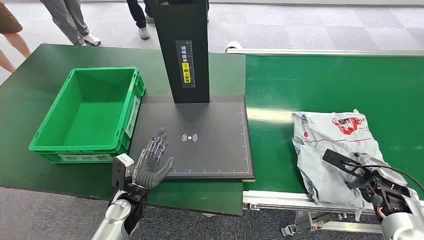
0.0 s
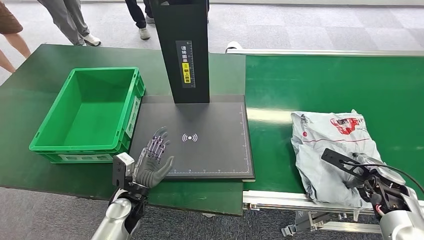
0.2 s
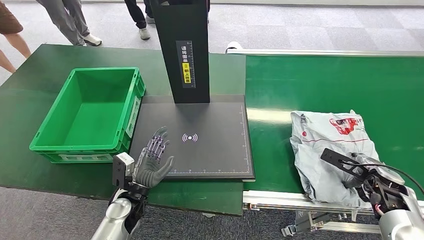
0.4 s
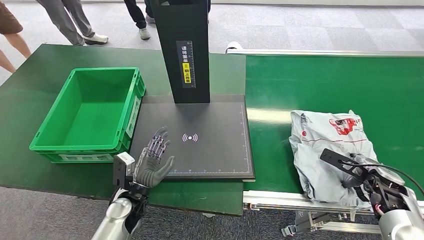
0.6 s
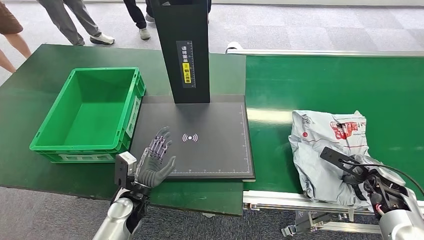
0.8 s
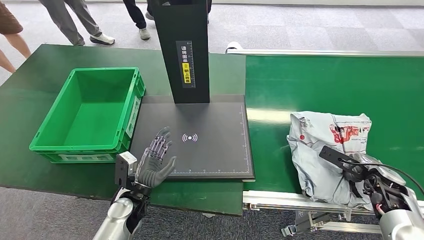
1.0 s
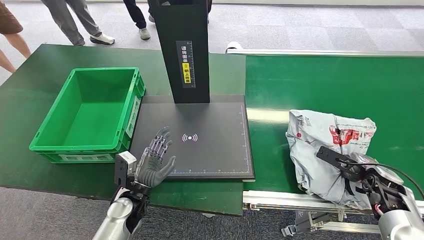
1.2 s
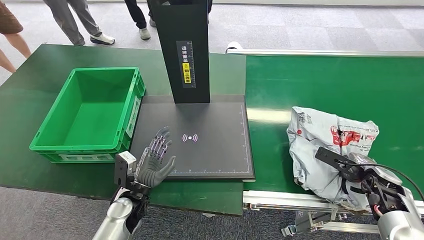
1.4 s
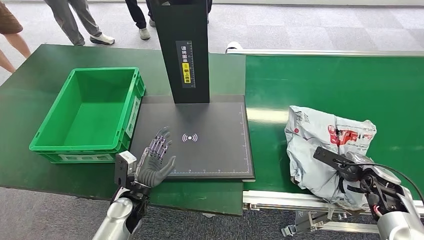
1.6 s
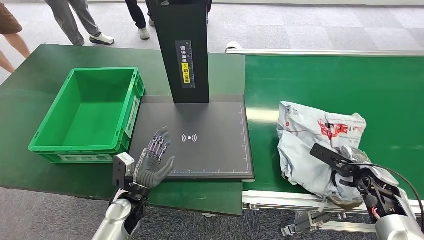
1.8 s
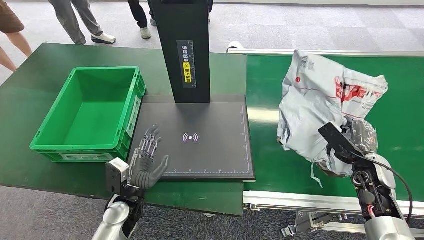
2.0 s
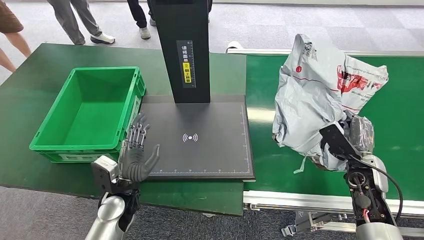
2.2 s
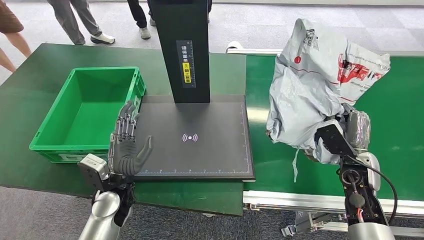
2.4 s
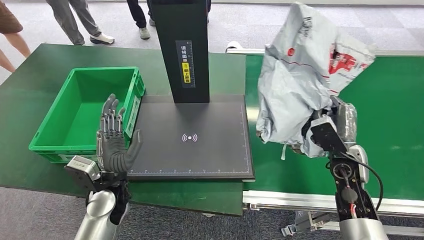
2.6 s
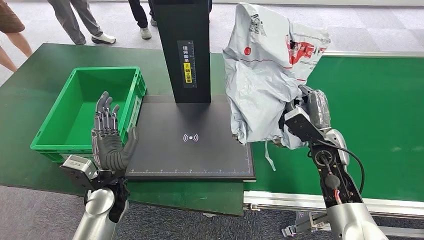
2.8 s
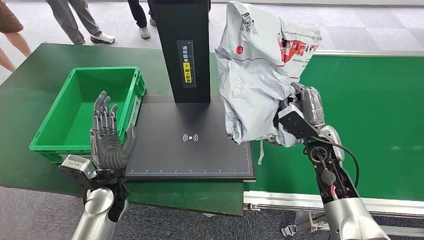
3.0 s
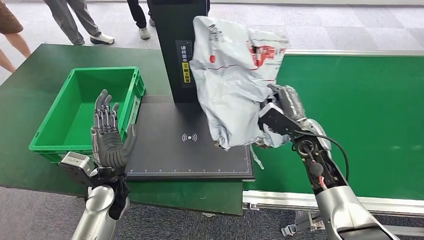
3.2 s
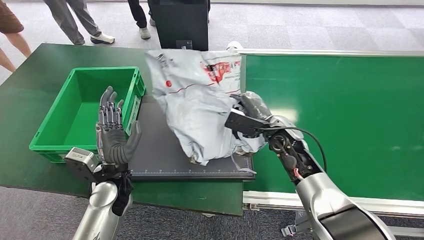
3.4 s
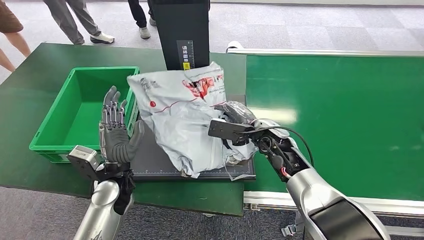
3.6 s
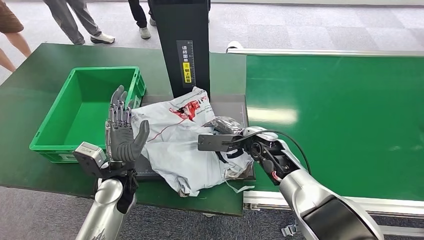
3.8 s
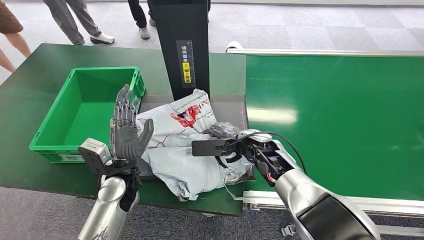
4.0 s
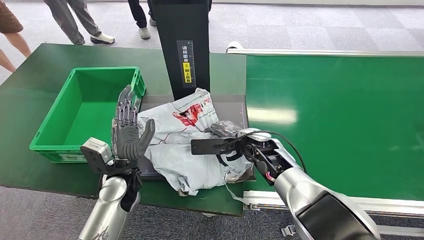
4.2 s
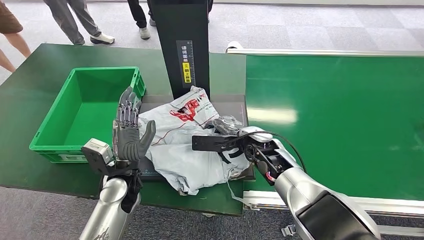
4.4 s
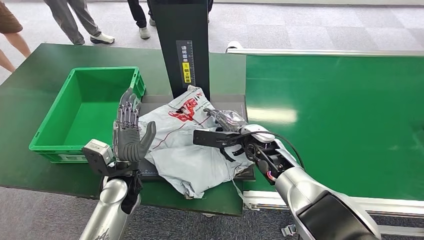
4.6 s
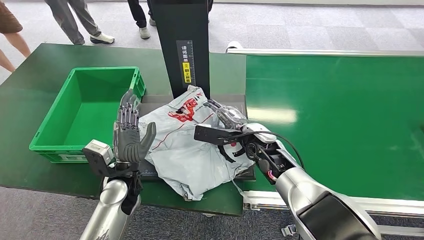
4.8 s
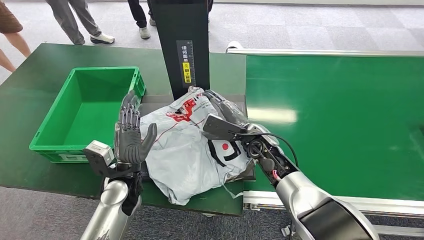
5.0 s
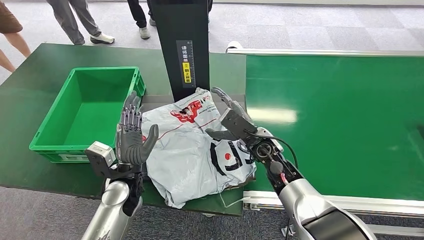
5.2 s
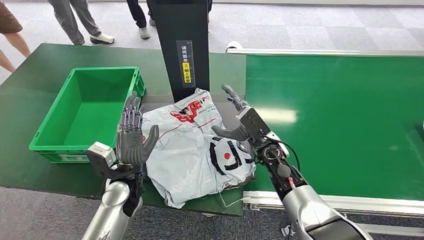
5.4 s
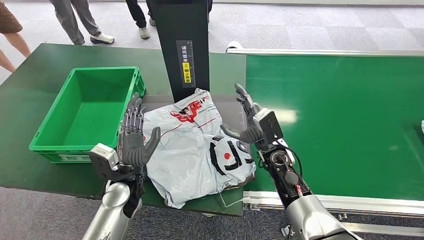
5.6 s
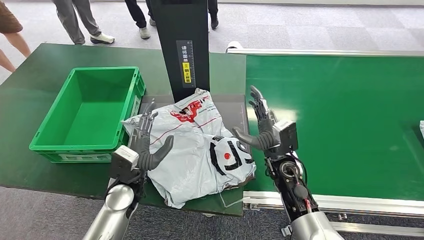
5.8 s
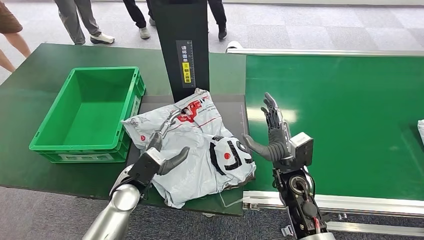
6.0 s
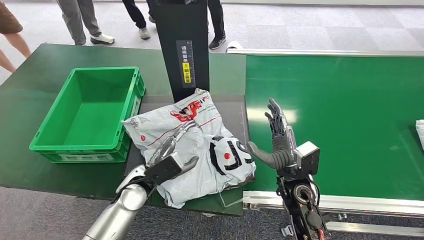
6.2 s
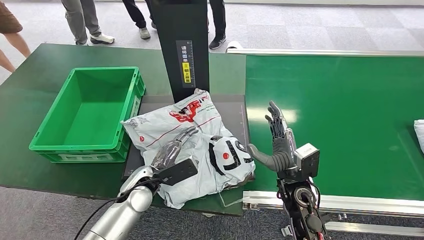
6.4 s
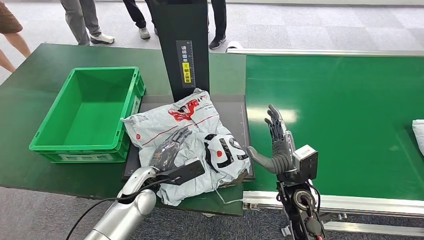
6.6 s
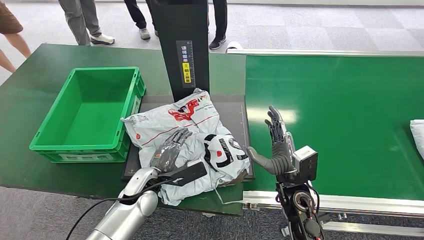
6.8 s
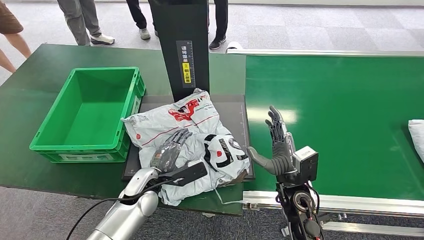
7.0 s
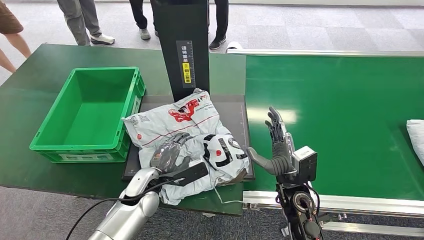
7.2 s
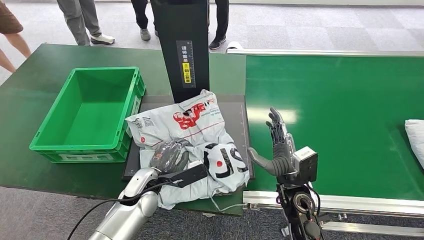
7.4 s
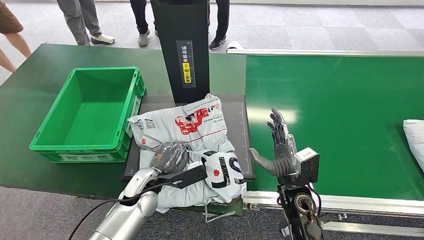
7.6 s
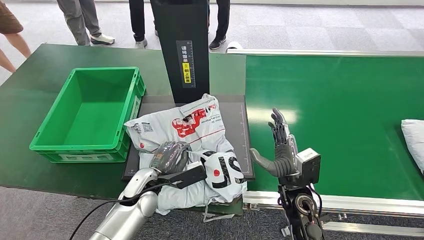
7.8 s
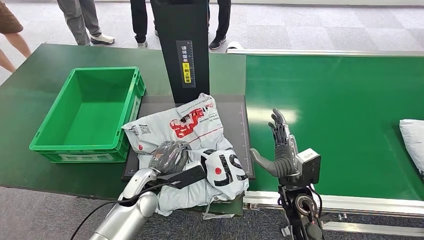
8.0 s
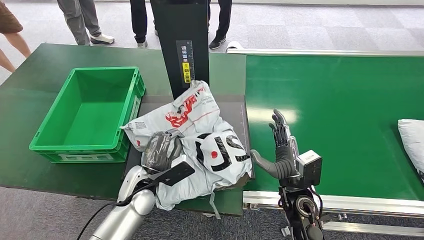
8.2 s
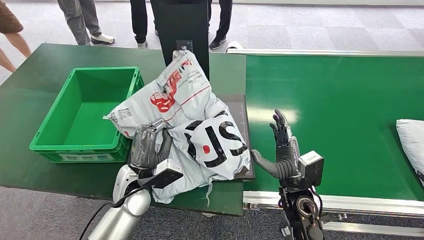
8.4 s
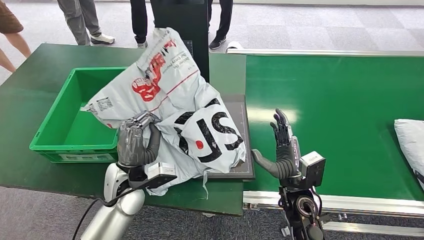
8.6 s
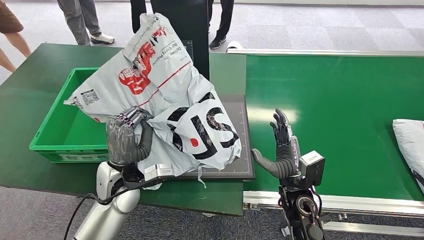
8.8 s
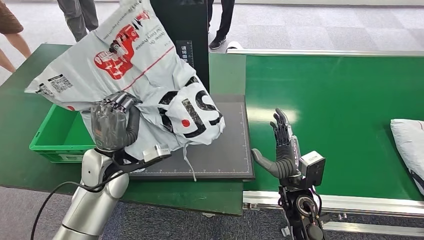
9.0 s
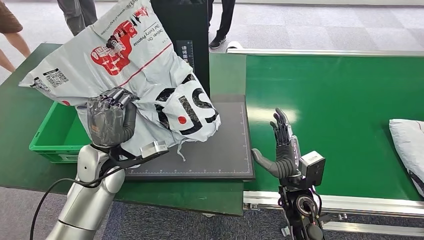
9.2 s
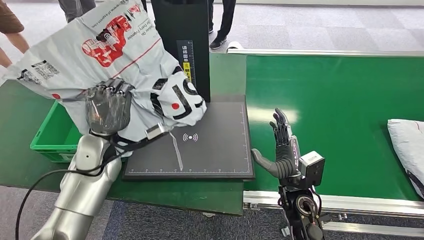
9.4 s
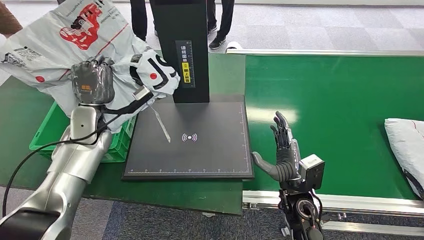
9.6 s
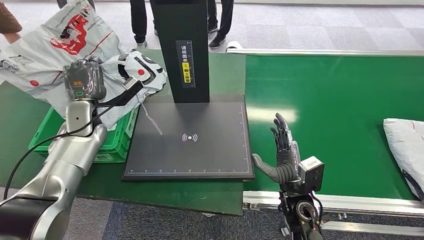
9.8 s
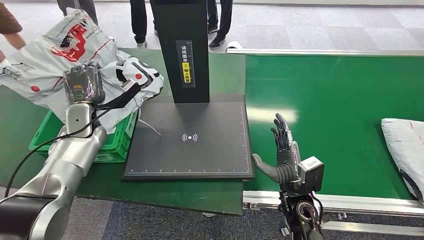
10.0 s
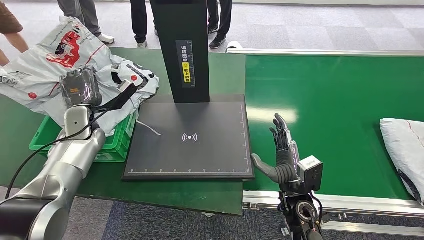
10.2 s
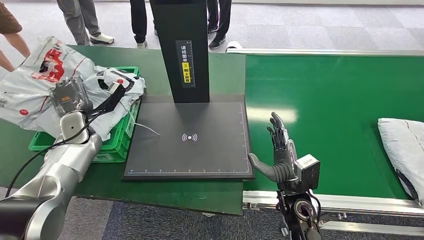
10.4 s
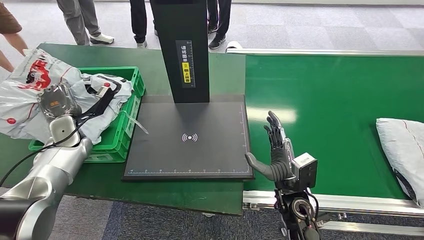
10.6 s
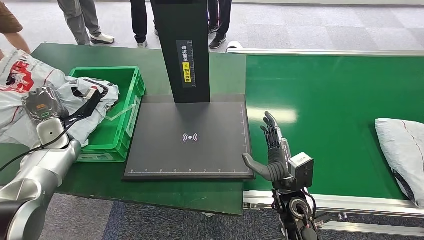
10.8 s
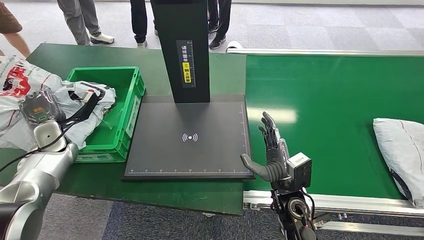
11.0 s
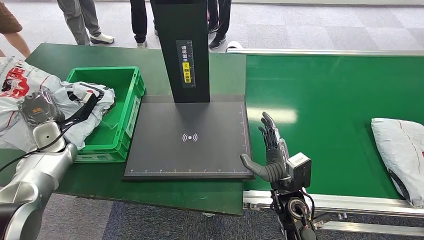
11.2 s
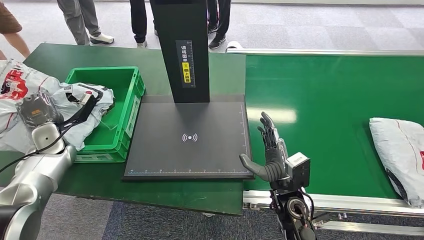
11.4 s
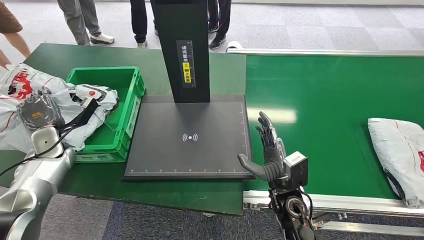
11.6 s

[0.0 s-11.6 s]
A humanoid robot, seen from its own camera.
Step, 0.0 to 2.4 s: Pick up the package from the conveyor belt.
Step, 2.6 to 6.0 s: Place the package onto the inbound machine.
Step, 6.2 to 8.8 s: Pick up the package from the inbound machine.
4.4 to 5.8 s: The right hand shifts roughly 10 cm backward and to the right.
5.8 to 7.2 s: The right hand moves backward, approximately 5 cm.

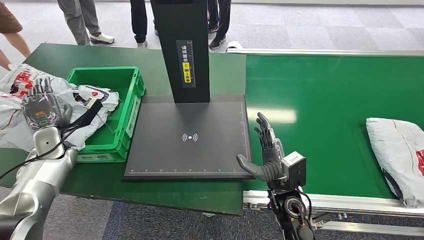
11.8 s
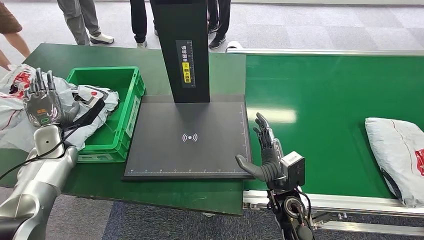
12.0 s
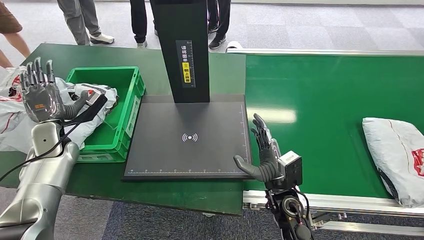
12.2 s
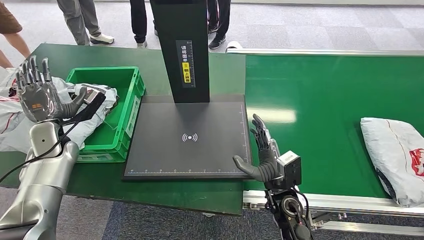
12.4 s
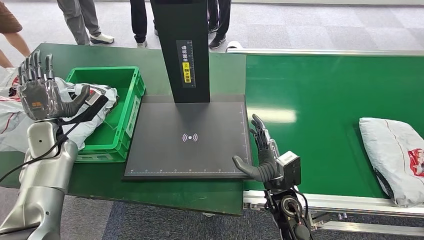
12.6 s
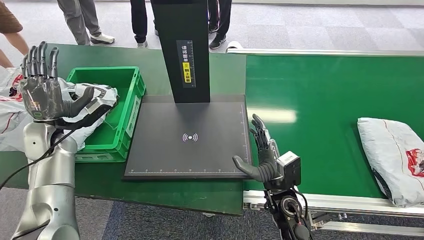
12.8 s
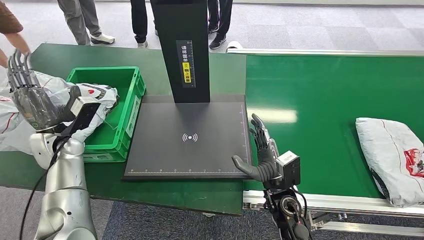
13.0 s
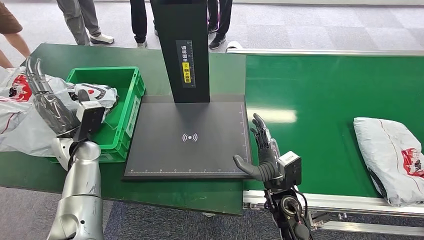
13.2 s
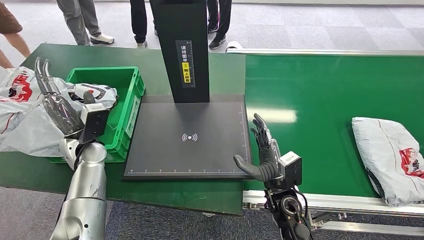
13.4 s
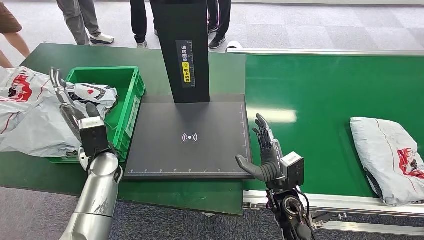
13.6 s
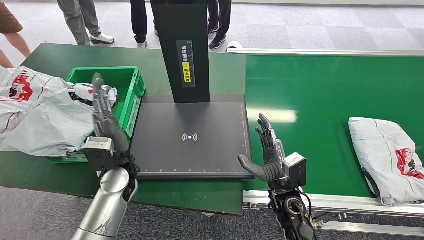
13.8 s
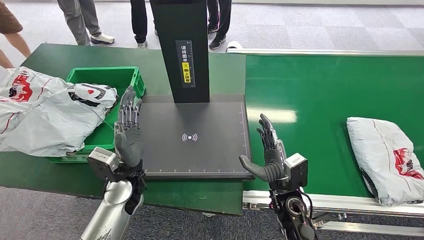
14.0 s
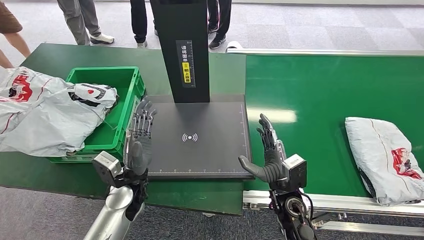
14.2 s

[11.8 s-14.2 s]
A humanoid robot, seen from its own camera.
Step, 11.8 to 14.2 s: Place the package into the parcel locker.
11.8 to 13.0 s: The left hand heads to the right and upward, covering some 10 cm.
13.0 to 14.2 s: The left hand is displaced to the right, backward and downward by about 20 cm.
